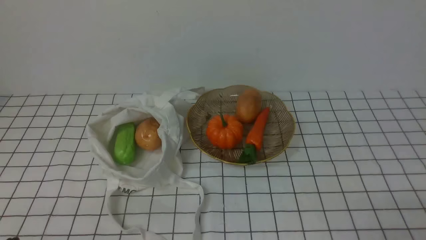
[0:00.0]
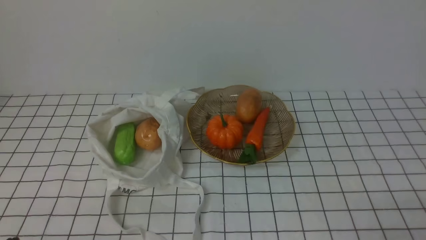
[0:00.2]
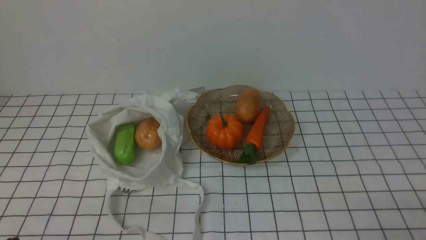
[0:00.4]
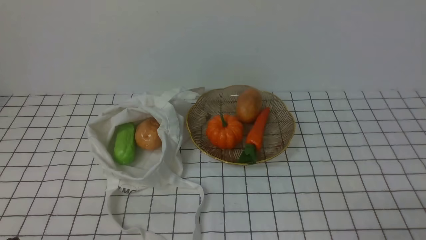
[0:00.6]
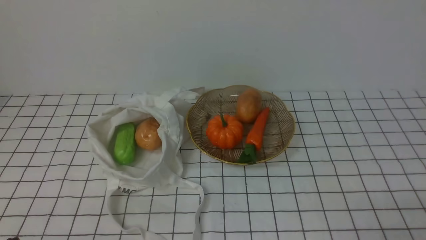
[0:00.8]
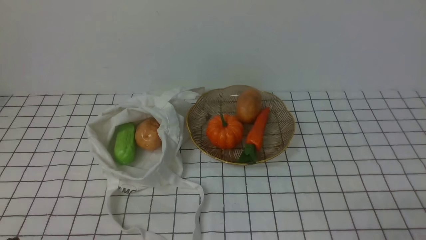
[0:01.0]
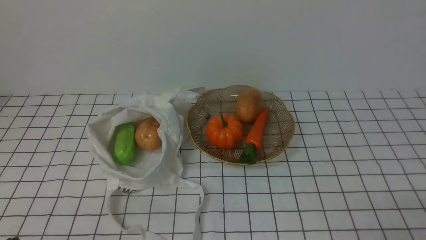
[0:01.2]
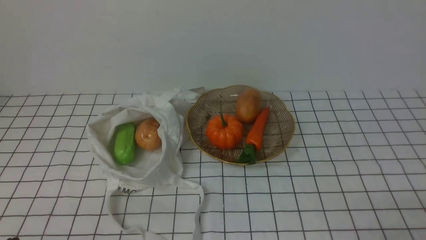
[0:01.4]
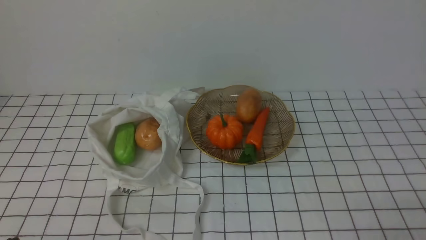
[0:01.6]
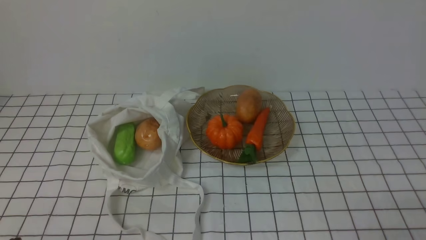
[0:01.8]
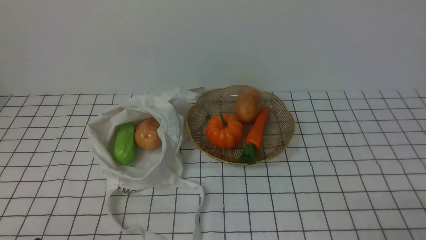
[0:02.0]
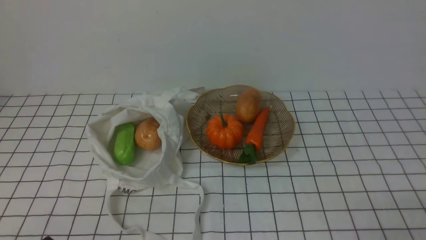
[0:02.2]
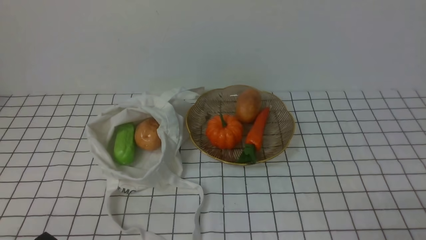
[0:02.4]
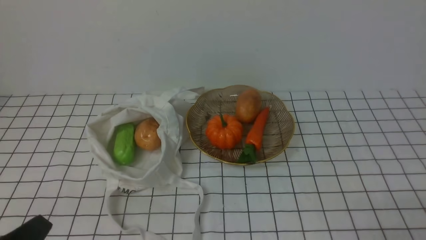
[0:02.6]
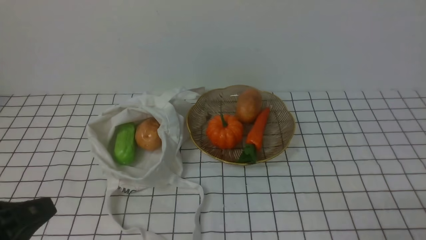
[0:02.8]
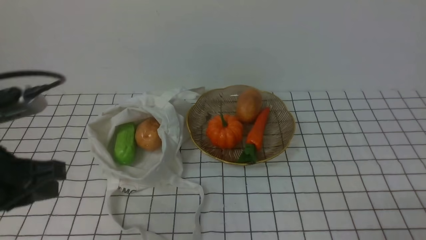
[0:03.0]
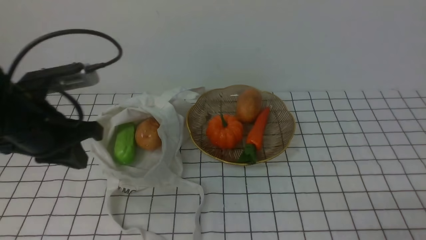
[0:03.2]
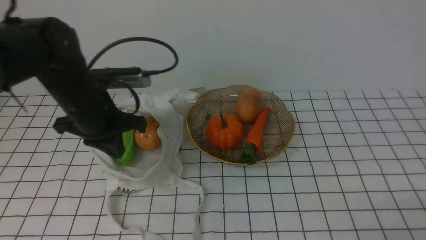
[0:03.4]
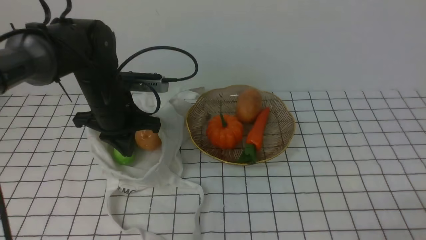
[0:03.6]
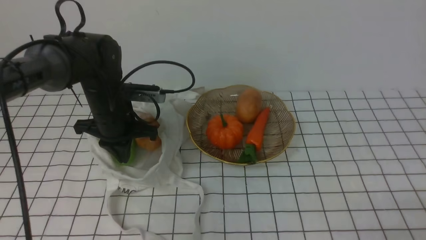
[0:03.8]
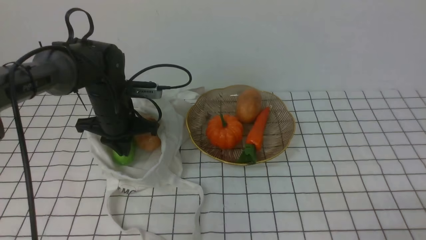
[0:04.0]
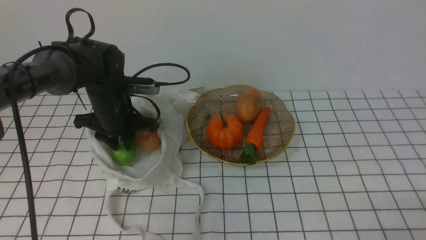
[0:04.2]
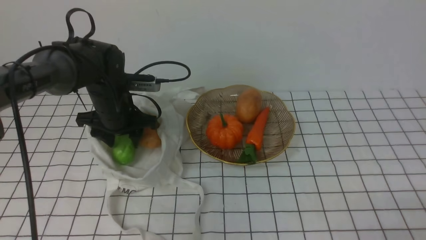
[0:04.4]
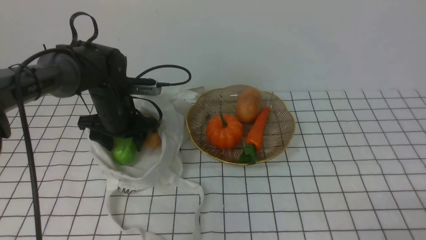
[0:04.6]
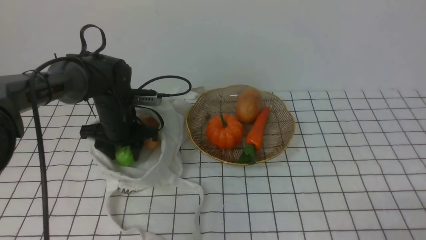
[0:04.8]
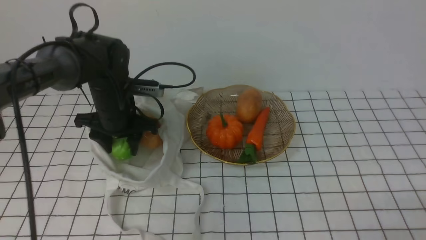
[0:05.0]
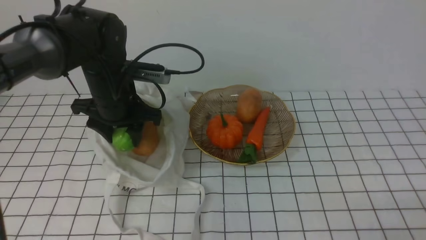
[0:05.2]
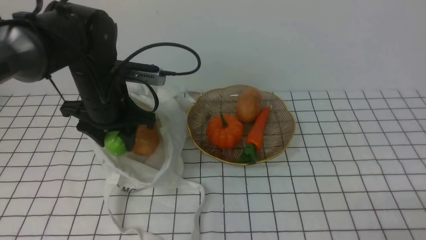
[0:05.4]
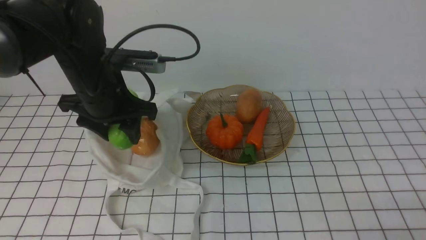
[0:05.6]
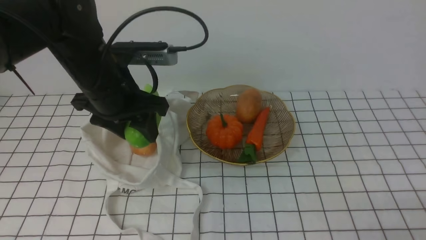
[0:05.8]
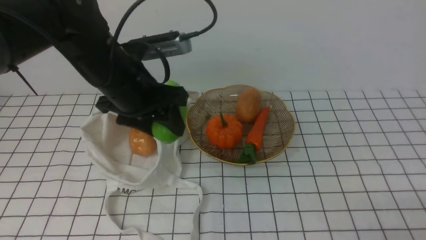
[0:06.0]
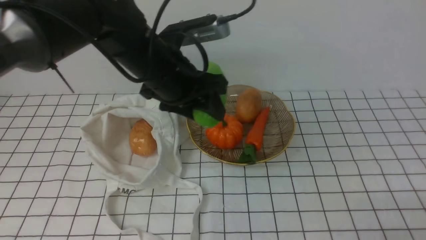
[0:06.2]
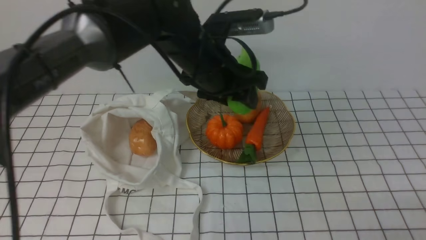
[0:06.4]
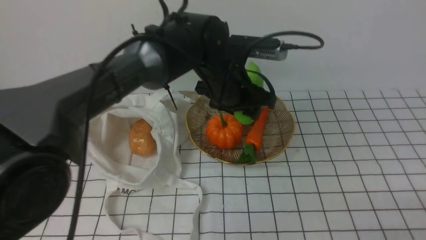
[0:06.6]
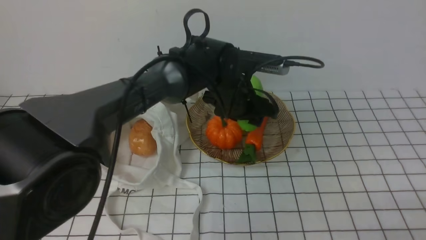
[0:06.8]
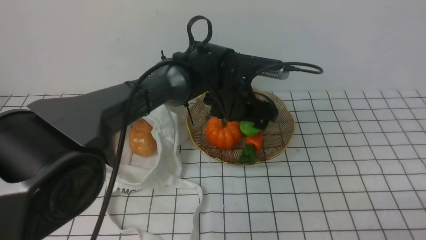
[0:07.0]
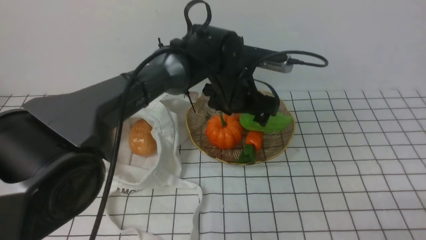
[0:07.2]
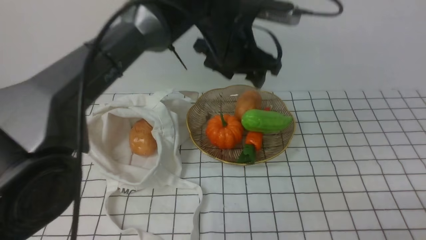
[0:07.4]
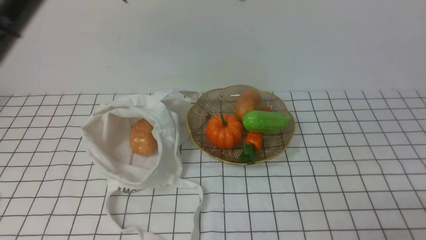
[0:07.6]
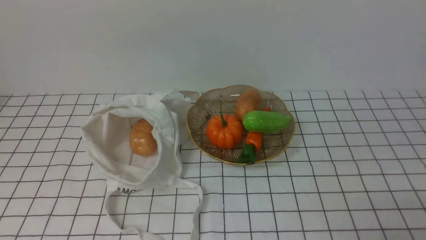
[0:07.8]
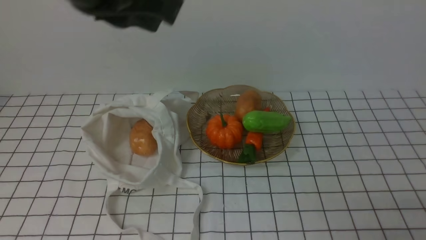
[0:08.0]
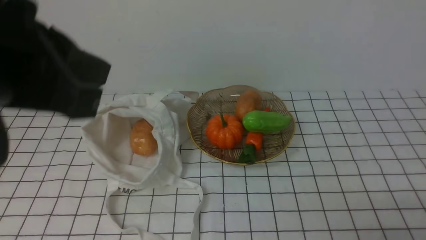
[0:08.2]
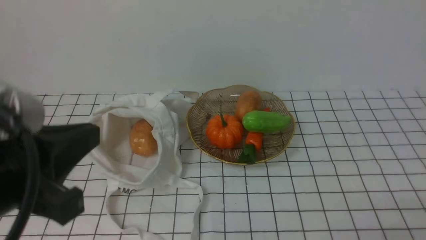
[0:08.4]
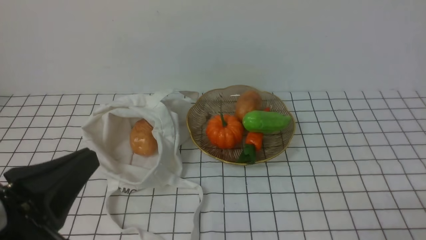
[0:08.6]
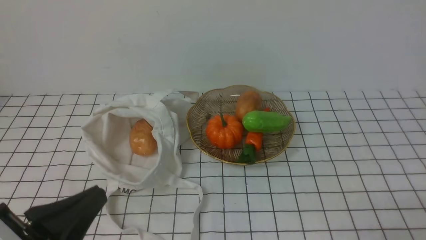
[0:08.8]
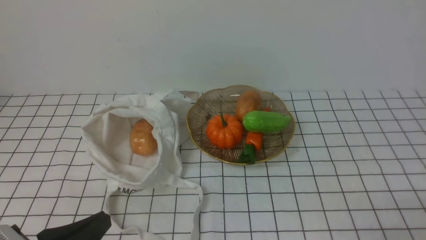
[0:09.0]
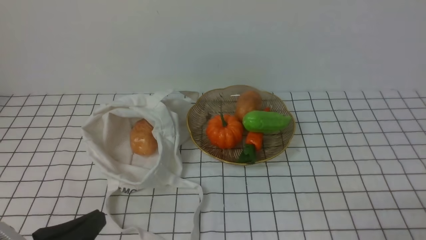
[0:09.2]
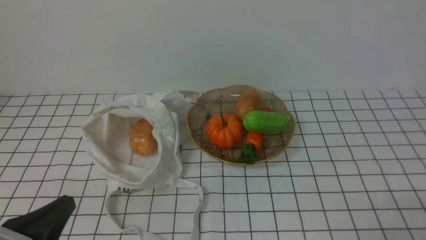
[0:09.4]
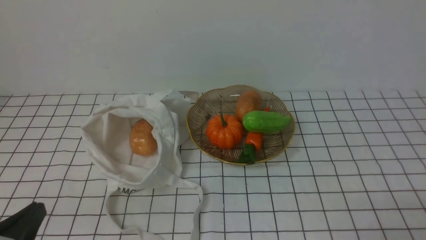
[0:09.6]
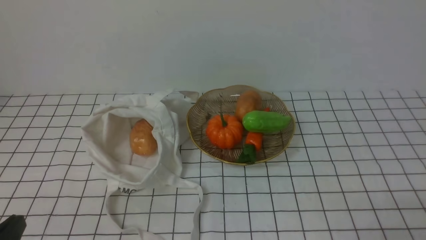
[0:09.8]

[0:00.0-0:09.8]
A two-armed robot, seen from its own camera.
Task of the whole recording: take vegetables from bag on white checkered tablecloth place on plate.
Step, 0:00.0 to 0:04.8: Grasp the bitter melon with left gripper.
Step, 0:05.0 to 0:07.4: Place the bitter melon on the plate with left gripper.
0:00.0 to 0:01.4: Both grippers stay about where they are.
0:01.4 to 0:02.8: The left gripper moves upward, about 10 cm.
0:02.8 to 0:04.2: The left gripper travels forward by approximately 30 cm, and opens.
0:04.2 to 0:05.6: The left gripper goes approximately 10 cm upward and backward.
0:05.6 to 0:07.0: The left gripper shifts some 20 cm to the right, and opens.
0:07.0 to 0:08.4: The left gripper heads backward, to the left and upward, covering about 40 cm, and closes.
0:08.4 to 0:09.8: The left gripper moves downward and to the left, about 15 cm.

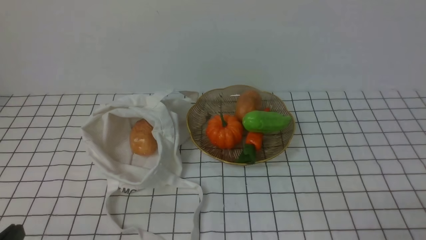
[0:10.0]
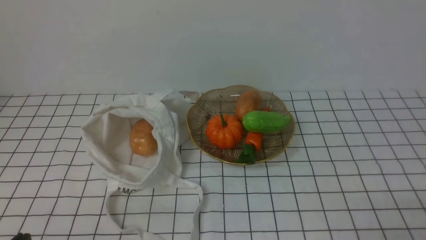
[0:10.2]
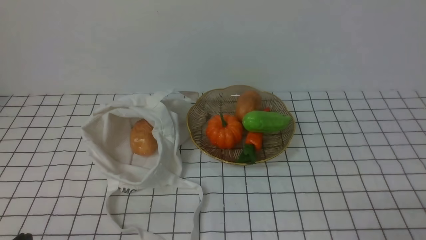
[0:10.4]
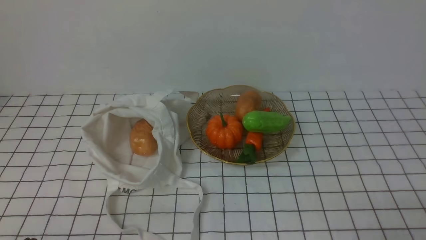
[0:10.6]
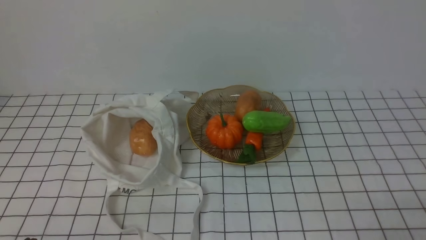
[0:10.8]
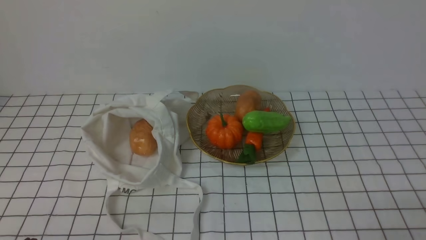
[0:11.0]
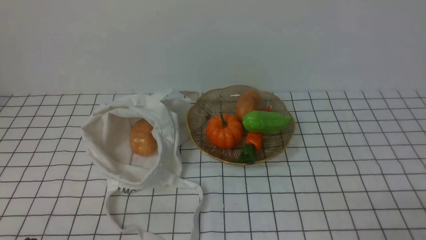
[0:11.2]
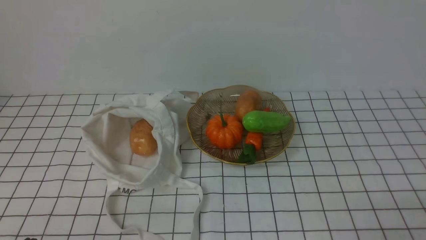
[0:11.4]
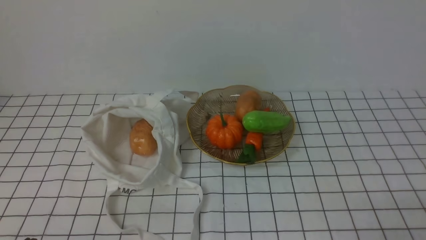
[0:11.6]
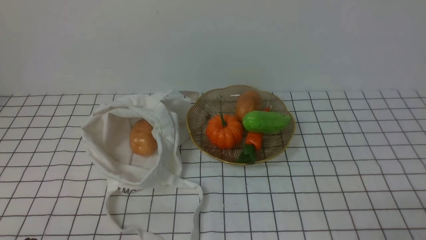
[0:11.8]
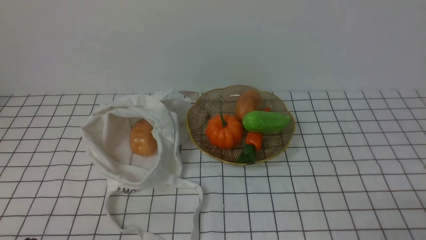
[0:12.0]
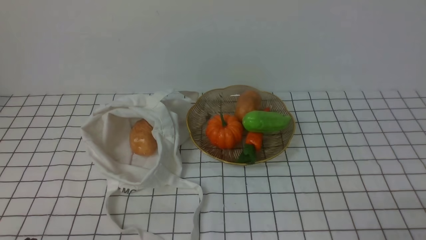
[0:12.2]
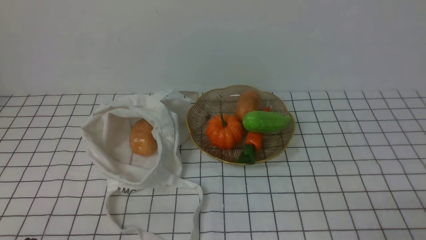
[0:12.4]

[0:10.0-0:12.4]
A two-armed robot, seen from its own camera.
Task of the whole recording: take vegetables from bag on white checkered tablecloth place on plate.
0:11.2 to 0:12.4: Neither gripper changes place.
